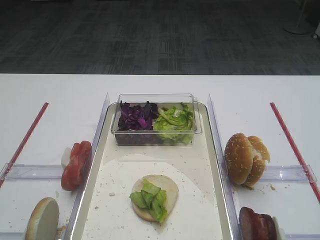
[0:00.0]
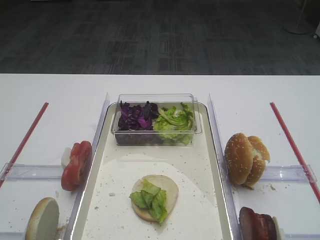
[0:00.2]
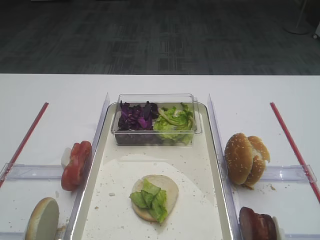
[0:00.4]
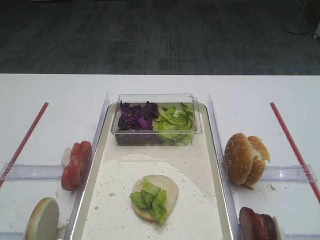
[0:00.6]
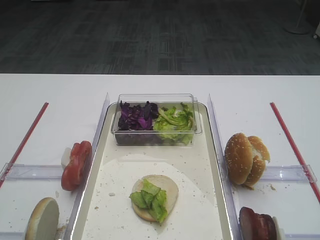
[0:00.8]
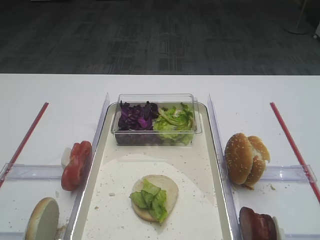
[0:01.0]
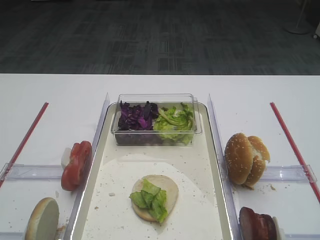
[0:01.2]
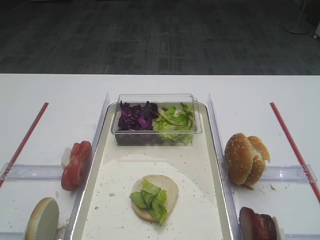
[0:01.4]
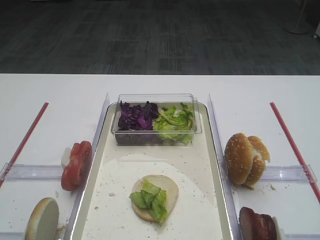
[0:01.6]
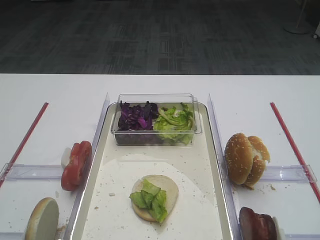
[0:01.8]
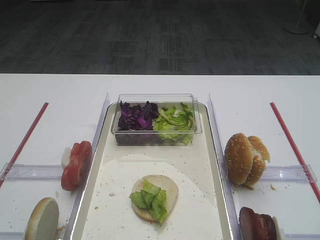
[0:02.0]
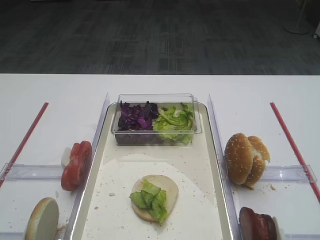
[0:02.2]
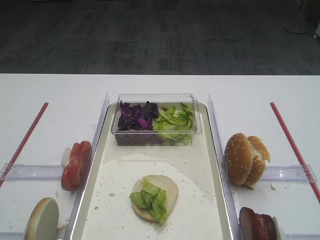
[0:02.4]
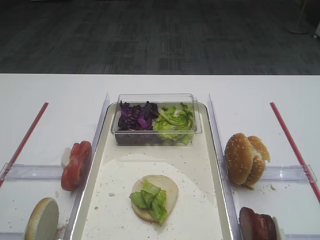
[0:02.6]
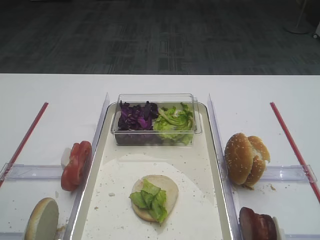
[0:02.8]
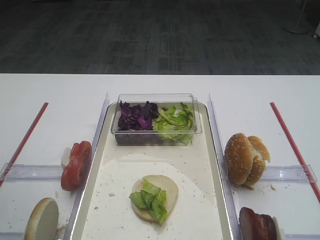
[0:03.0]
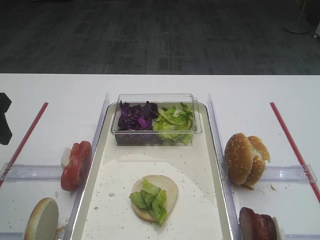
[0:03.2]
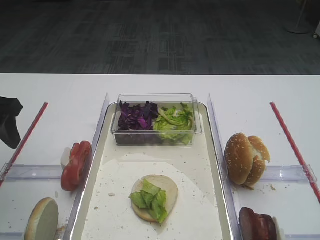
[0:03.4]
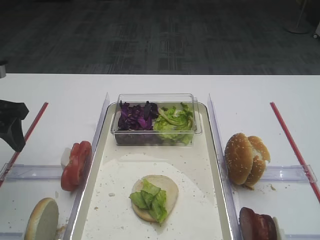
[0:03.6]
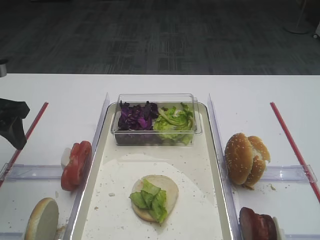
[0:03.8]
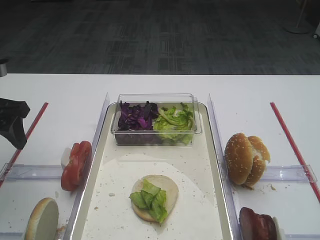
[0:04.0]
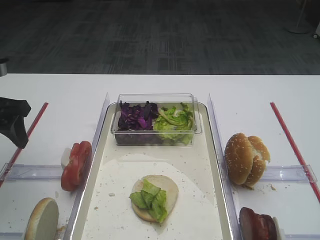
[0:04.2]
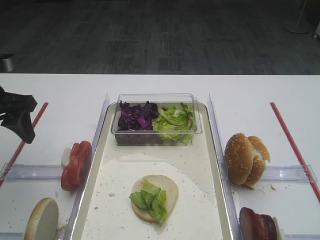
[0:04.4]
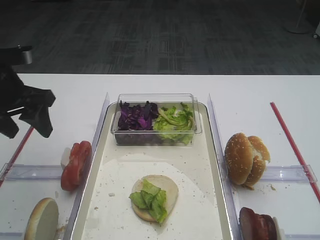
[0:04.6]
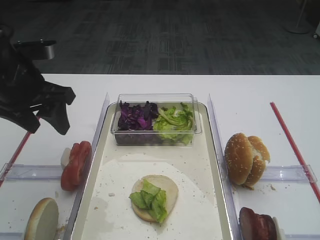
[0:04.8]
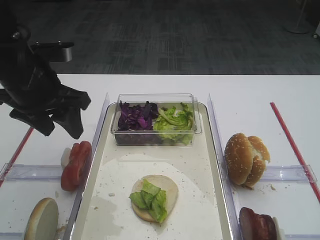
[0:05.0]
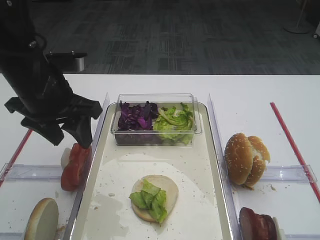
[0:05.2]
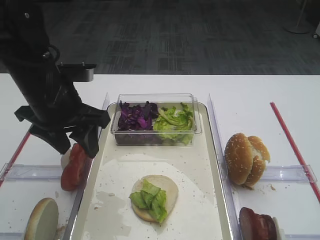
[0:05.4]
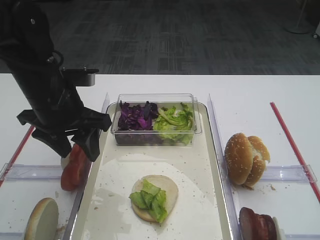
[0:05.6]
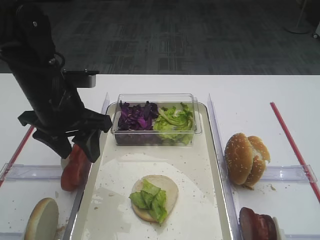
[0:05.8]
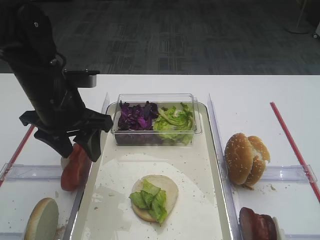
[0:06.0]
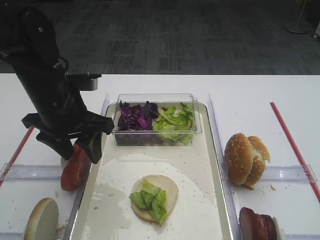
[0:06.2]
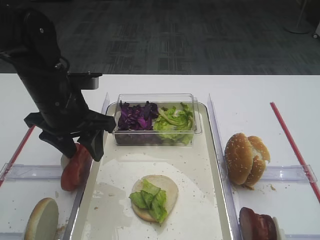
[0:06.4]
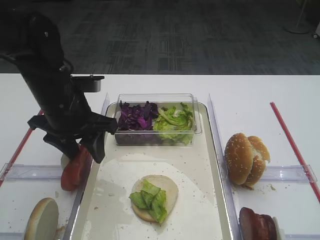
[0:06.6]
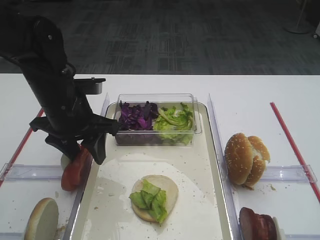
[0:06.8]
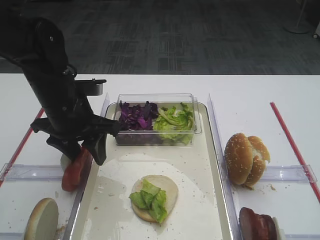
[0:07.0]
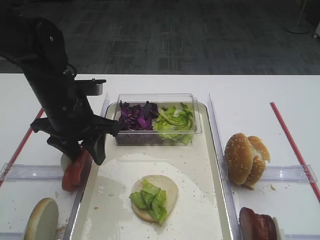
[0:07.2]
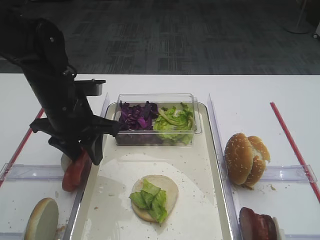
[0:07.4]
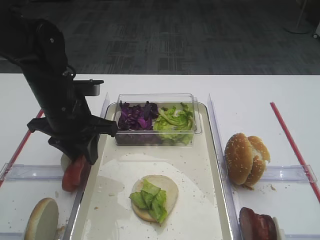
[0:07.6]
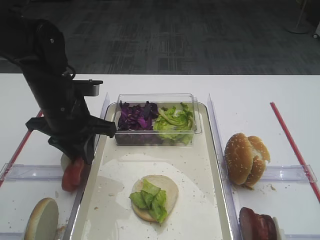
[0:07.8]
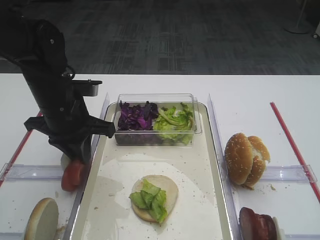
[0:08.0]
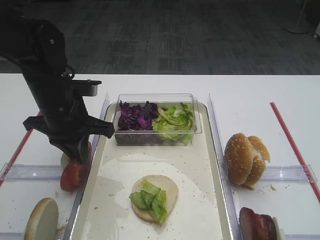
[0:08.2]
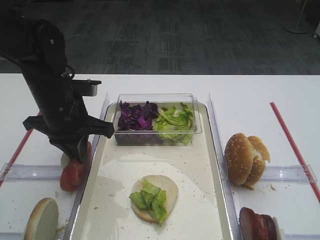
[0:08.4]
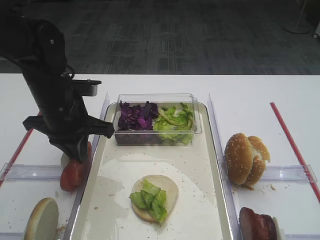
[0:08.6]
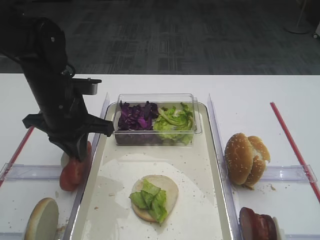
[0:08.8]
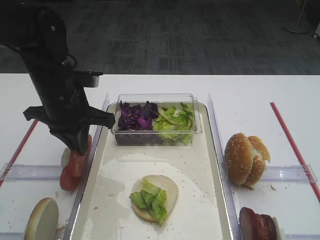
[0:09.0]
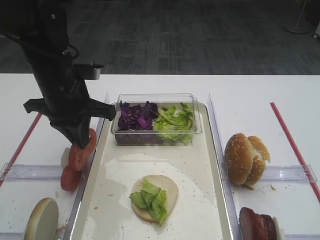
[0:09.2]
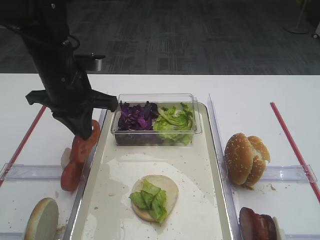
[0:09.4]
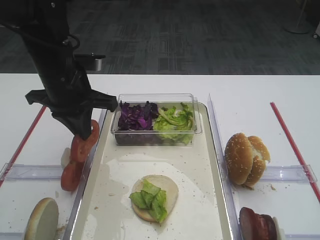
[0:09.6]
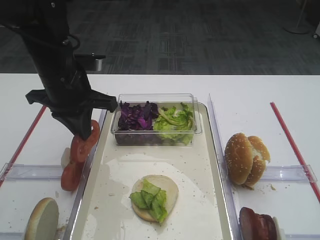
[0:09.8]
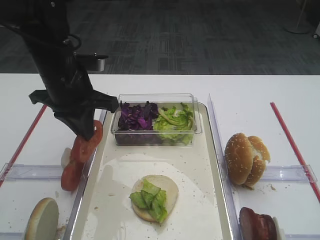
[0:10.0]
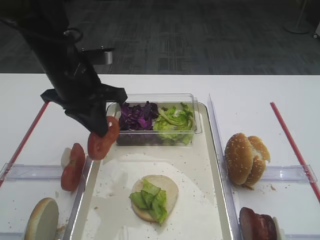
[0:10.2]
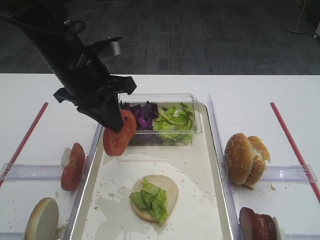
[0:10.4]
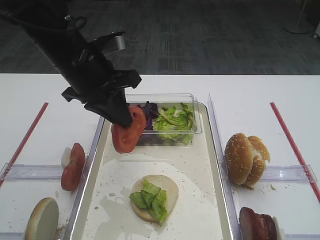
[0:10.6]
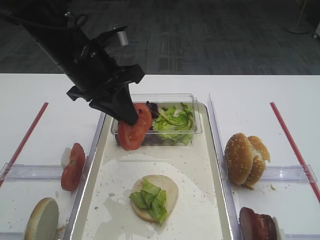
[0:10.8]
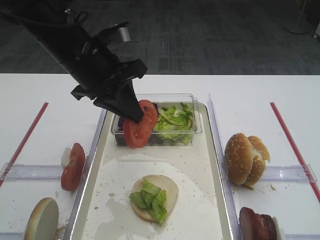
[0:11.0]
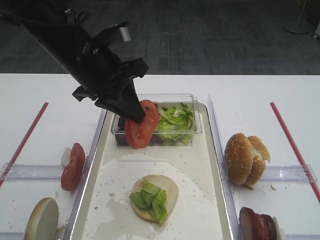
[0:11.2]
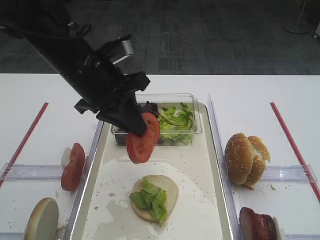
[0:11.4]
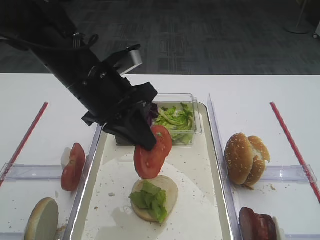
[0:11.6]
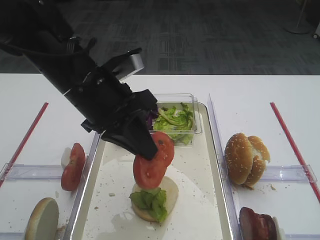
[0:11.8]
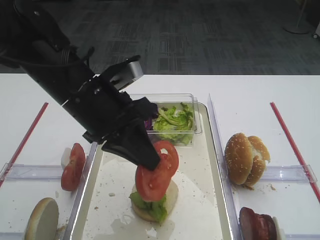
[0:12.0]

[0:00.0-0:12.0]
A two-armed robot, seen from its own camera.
Step, 0:00.0 to 0:10.0: Pick up the tomato slice with the left gripper.
0:03.0 to 0:04.4: The left gripper is displaced forward and downward by some 10 cm.
0:04.4 to 0:06.0: The left gripper shifts about 10 cm to the right.
0:06.0 to 0:07.6: There are only small adjustments of the grippers.
0:07.6 to 0:09.0: The left gripper closes up.
0:09.0 to 0:10.4: The left gripper is displaced upward by some 5 cm.
0:10.4 to 0:12.0: The left gripper shifts roughly 5 cm backward.

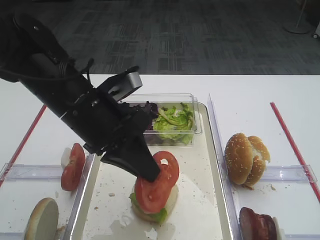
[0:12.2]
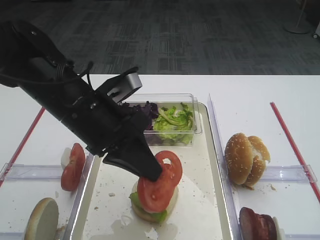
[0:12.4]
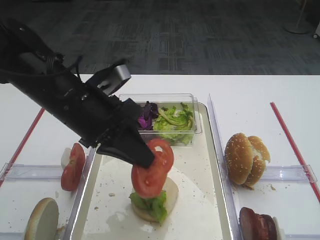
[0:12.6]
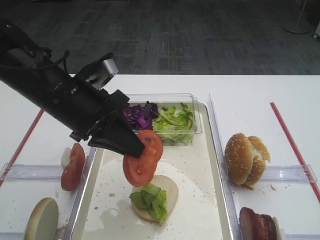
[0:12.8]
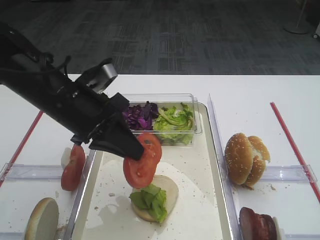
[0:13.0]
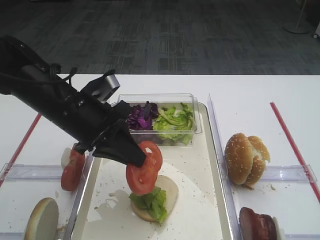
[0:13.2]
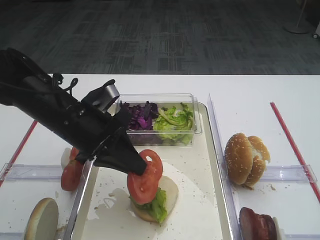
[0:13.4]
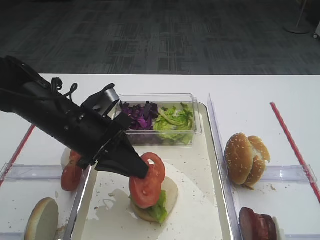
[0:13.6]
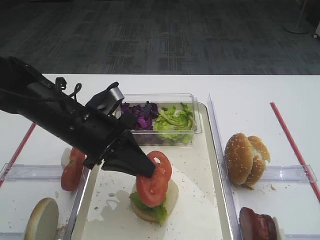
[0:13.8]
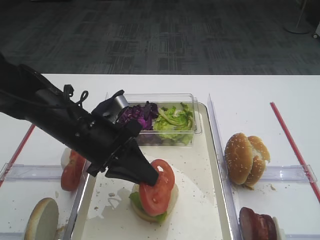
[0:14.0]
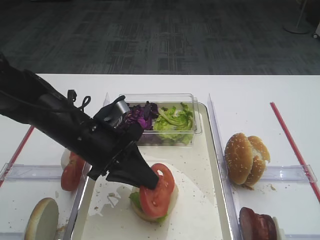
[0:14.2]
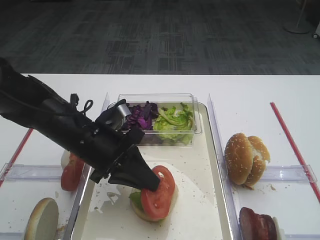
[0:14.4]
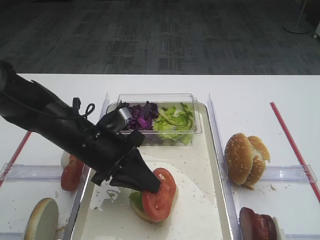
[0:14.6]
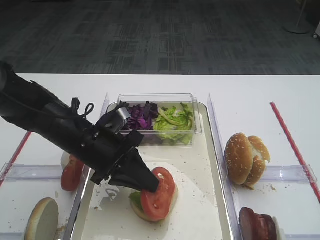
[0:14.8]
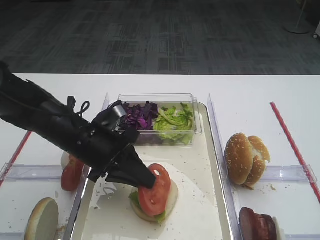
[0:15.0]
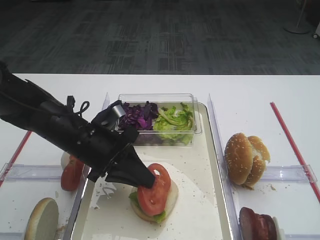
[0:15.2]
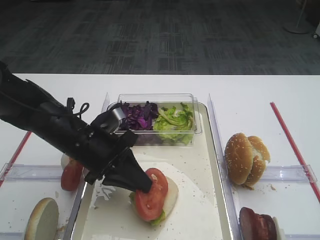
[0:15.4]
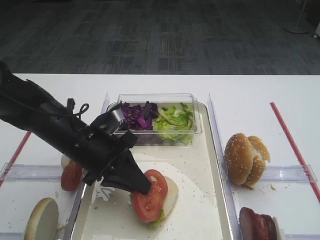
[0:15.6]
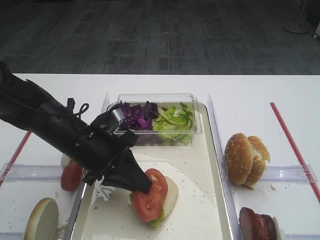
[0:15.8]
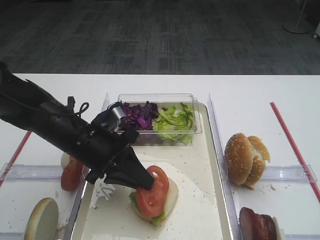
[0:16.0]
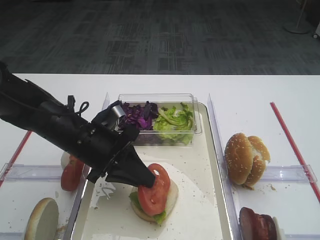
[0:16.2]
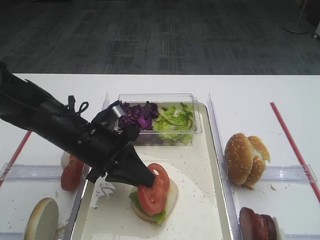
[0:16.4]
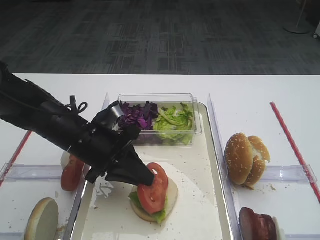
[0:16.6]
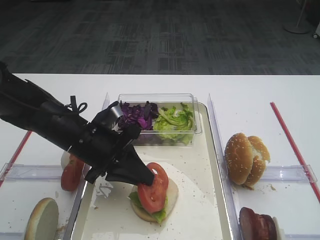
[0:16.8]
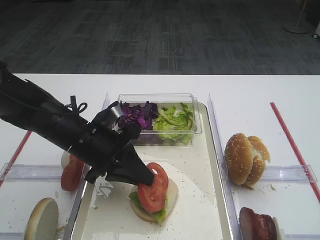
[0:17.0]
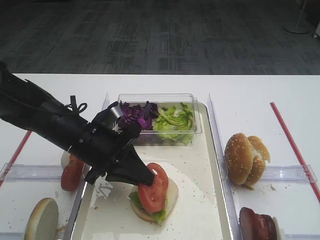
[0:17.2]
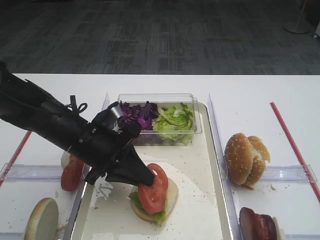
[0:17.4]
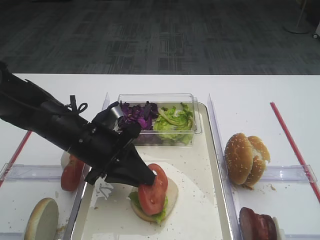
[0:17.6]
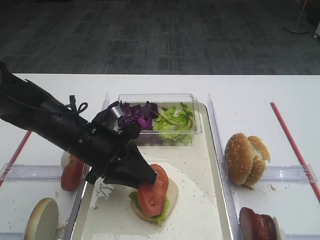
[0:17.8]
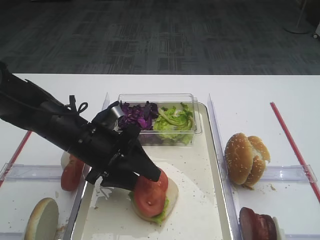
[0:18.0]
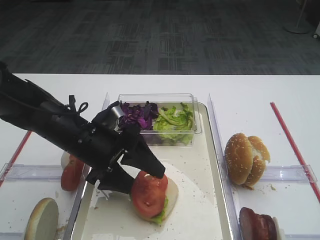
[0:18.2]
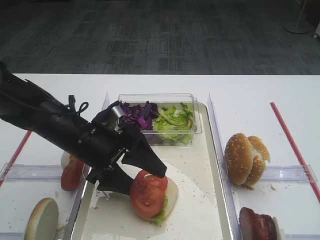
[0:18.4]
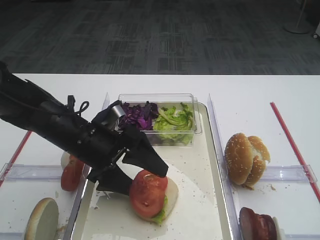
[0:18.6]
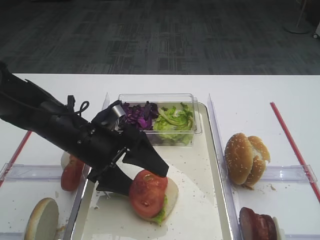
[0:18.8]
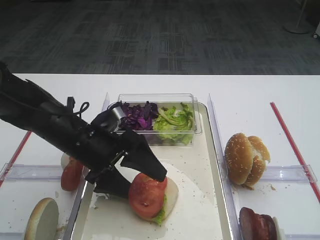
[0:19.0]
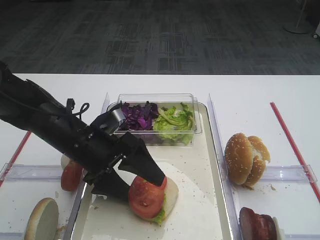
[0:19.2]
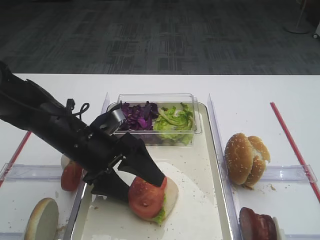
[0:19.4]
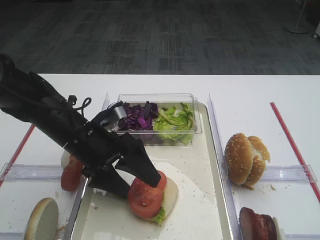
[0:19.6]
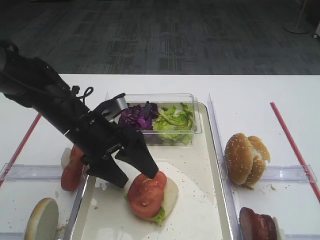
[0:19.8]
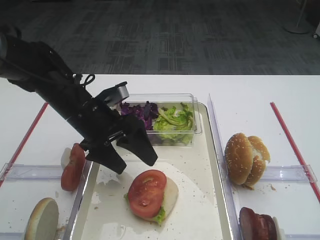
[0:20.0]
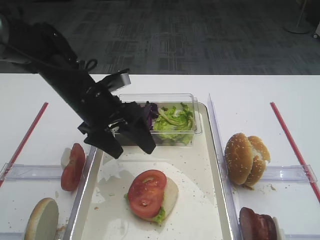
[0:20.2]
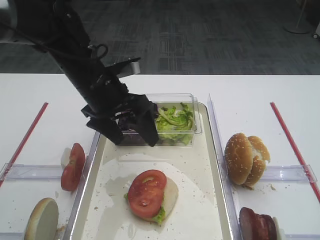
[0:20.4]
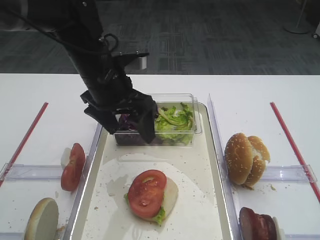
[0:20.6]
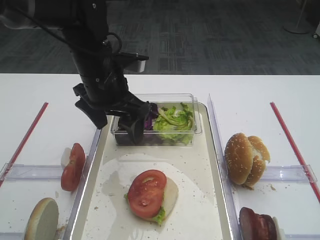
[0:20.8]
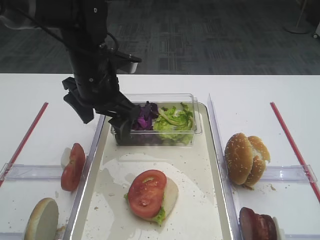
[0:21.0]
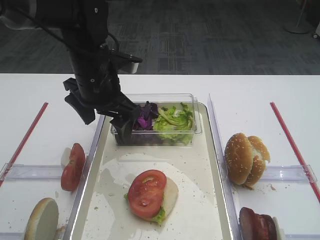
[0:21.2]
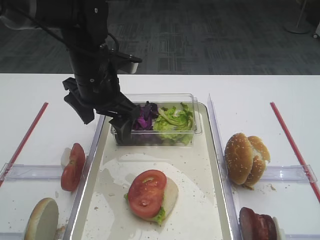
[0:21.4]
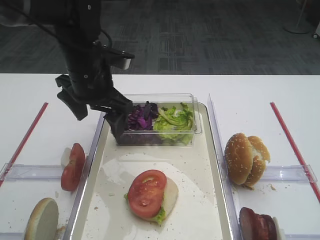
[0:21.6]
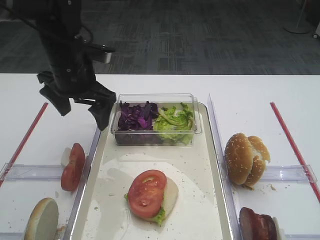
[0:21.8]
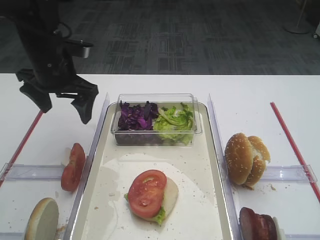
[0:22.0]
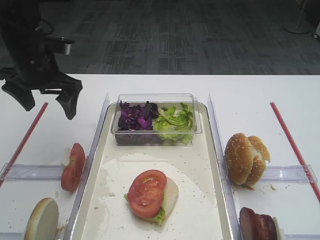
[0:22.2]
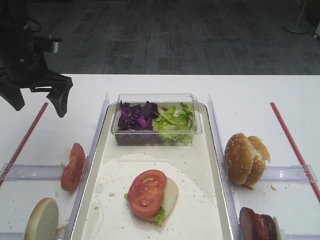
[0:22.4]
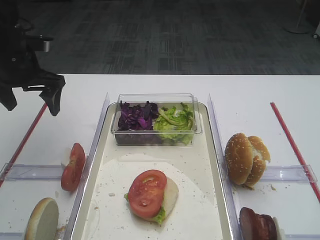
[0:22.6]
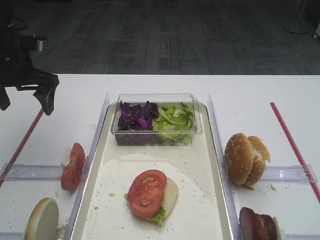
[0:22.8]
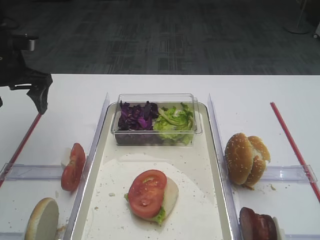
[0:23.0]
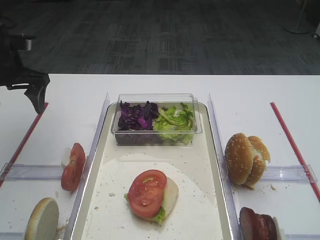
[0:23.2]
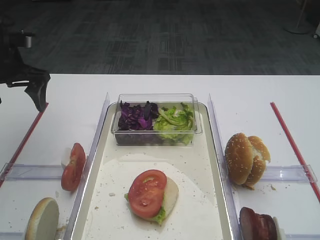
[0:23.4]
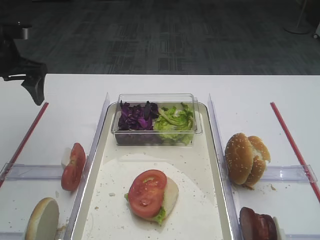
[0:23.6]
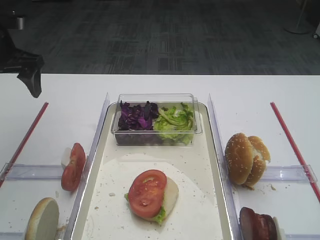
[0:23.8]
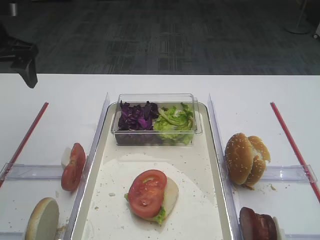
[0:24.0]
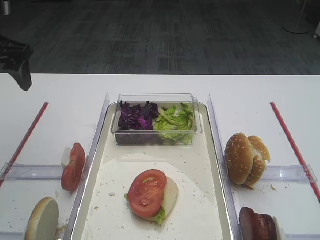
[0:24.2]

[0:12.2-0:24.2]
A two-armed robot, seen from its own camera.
Step, 0:12.2 to 0:19.8: Place the tomato slice on the lettuce leaf with the left gripper.
0:12.2 to 0:13.8: The left gripper shifts roughly 5 cm downward.
0:13.8 to 0:15.2: The grippers stay close to where they were, moving slightly.
0:15.2 to 0:16.6: Both grippers stay about where they are.
0:16.6 to 0:18.2: The left gripper opens its fingers.
0:18.2 to 0:19.8: The grippers move only a little.
0:19.8 to 0:21.2: The left gripper is displaced upward and forward by roughly 10 cm.
0:21.2 to 0:22.6: The left gripper shifts some 15 cm to the left.
0:22.6 to 0:24.2: The left gripper moves upward, approximately 5 cm.
